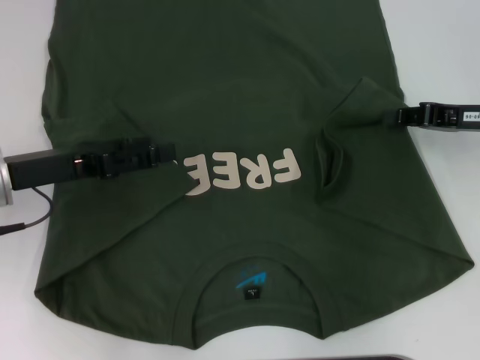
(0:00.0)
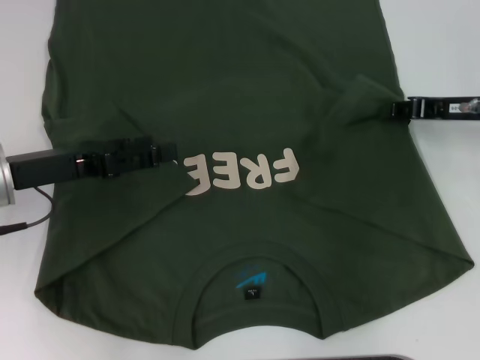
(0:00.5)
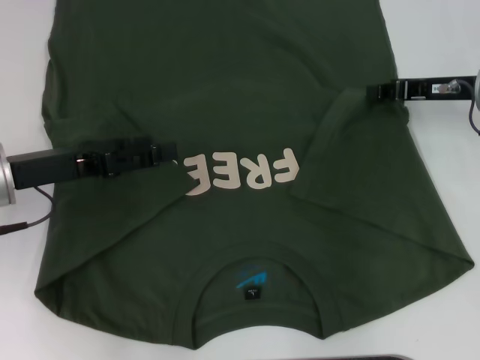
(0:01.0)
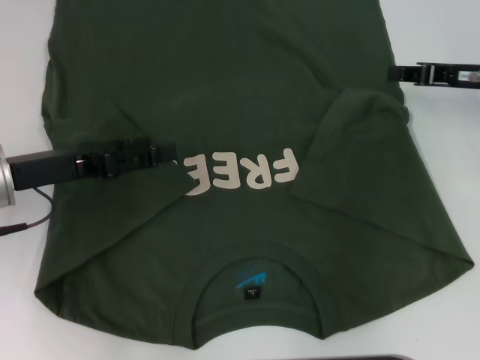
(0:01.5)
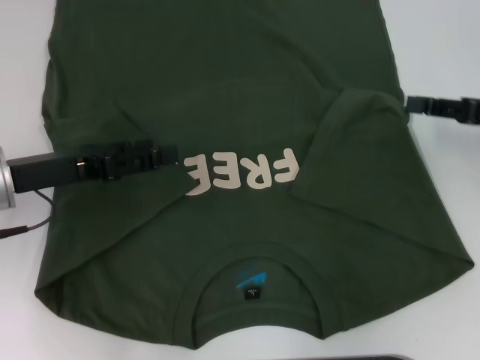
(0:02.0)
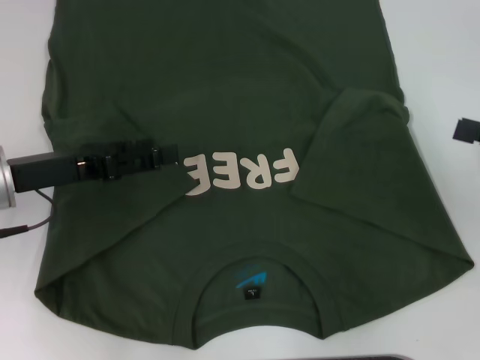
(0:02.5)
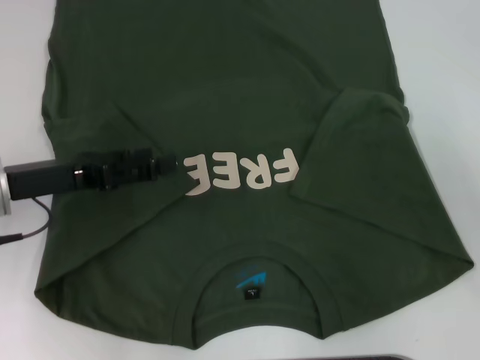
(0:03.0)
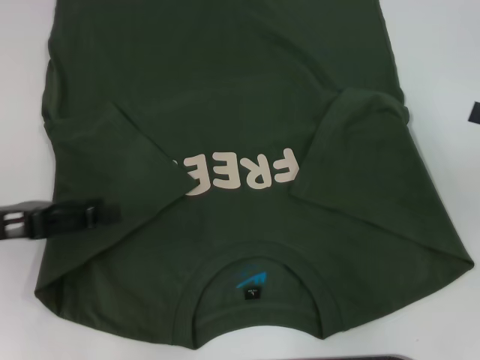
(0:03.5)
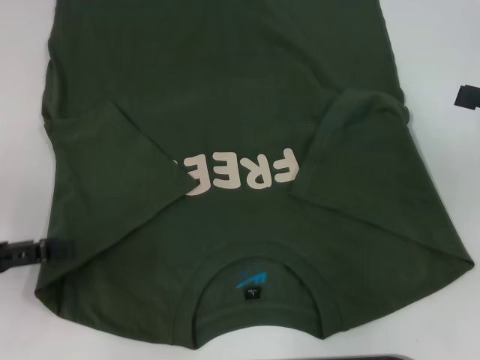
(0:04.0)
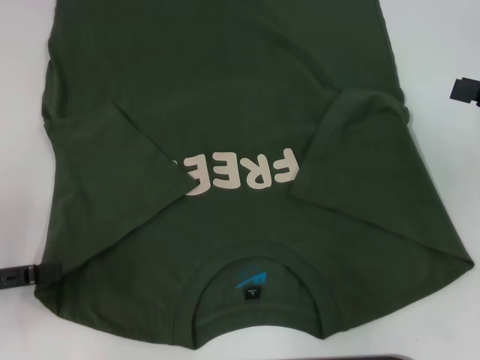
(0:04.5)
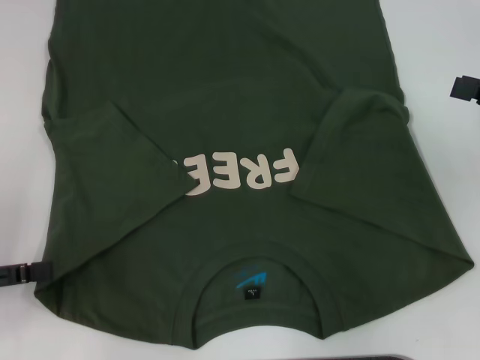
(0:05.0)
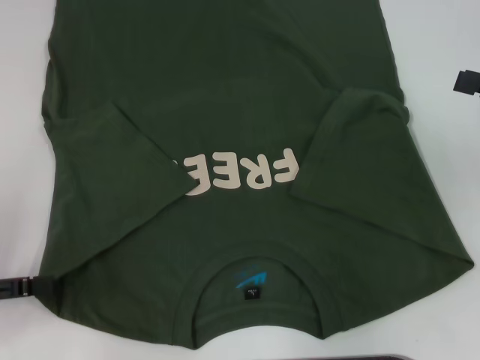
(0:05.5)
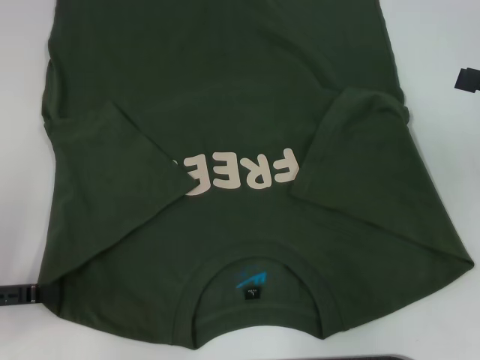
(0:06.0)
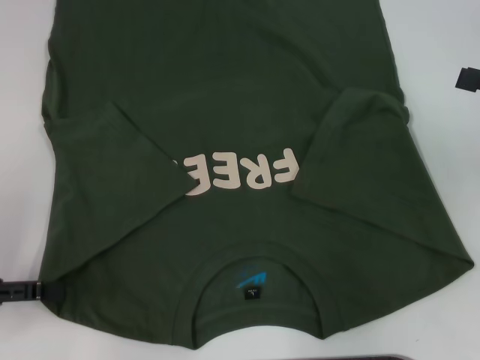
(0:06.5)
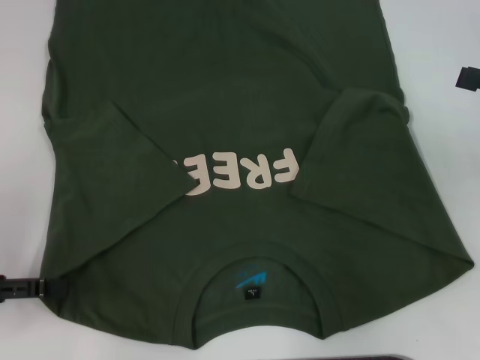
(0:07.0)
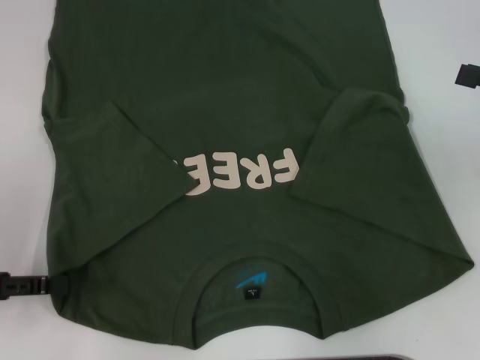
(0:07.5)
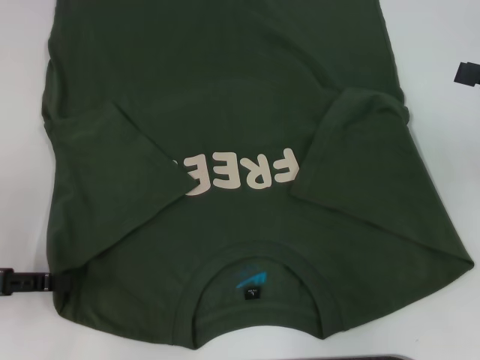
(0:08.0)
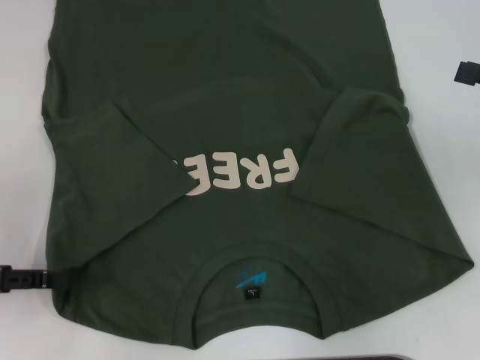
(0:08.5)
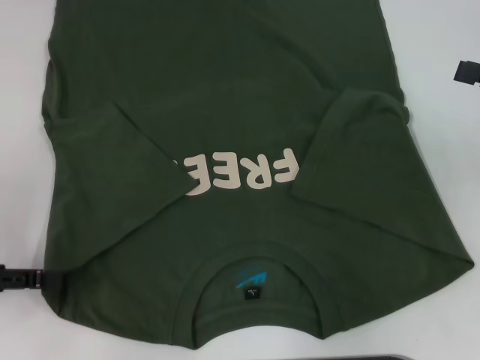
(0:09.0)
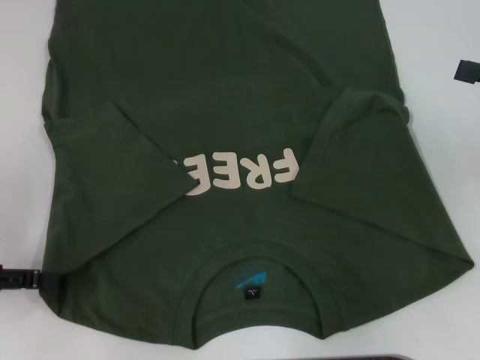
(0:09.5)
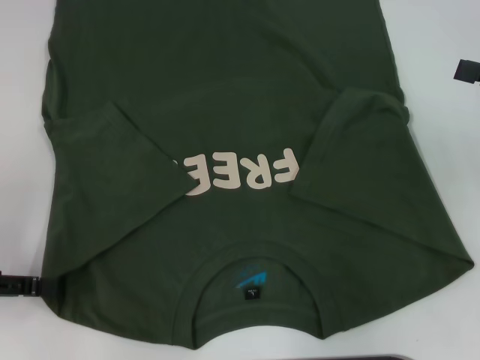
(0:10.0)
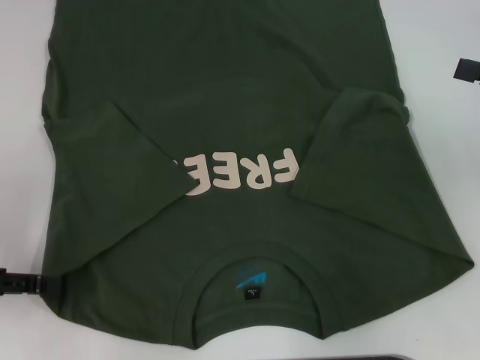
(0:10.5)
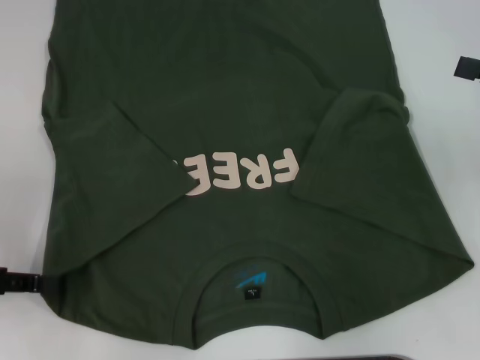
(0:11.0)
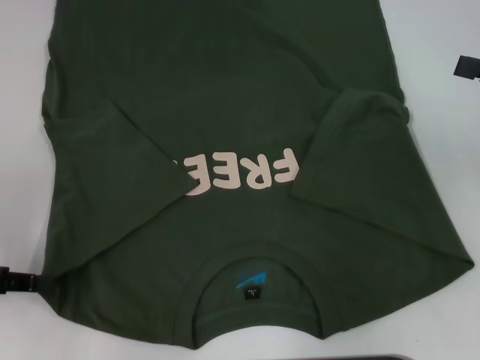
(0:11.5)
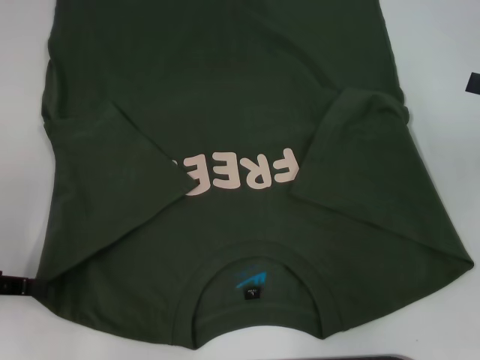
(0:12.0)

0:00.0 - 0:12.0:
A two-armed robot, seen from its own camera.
0:00.0 - 0:02.0: There are only small adjustments of the grippers.
0:02.0 - 0:04.0: The right gripper opens its fingers, while the left gripper heads to the left and backward, covering about 10 cm.
0:04.0 - 0:06.0: The grippers stay close to where they were, moving slightly.
0:06.0 - 0:08.0: The left gripper closes.
0:08.0 - 0:10.0: Both grippers stay about where they are.

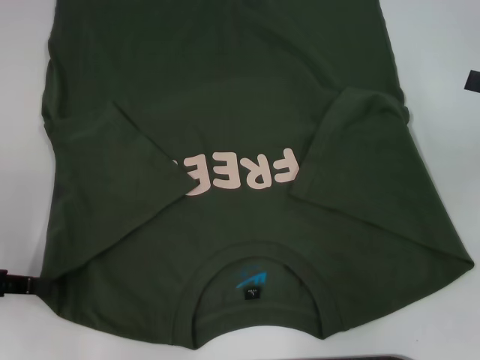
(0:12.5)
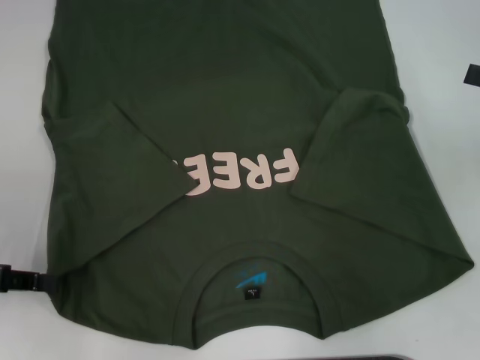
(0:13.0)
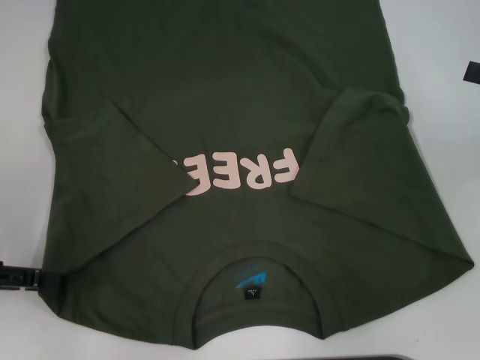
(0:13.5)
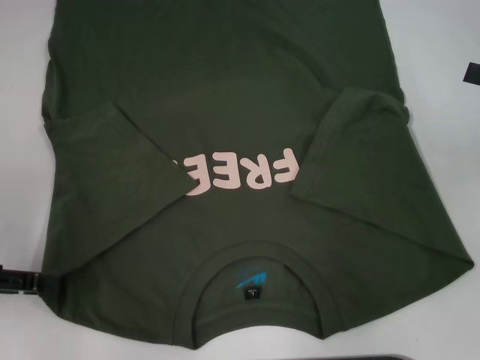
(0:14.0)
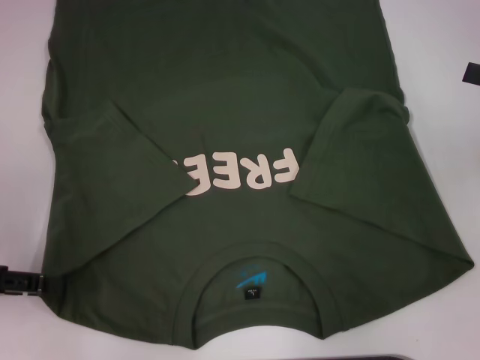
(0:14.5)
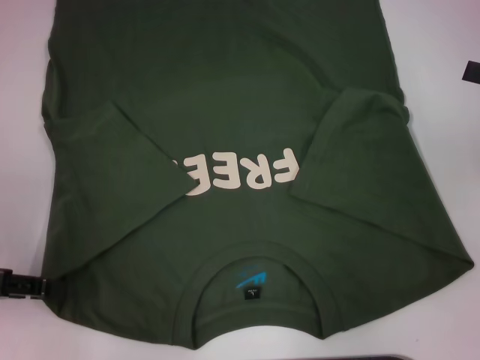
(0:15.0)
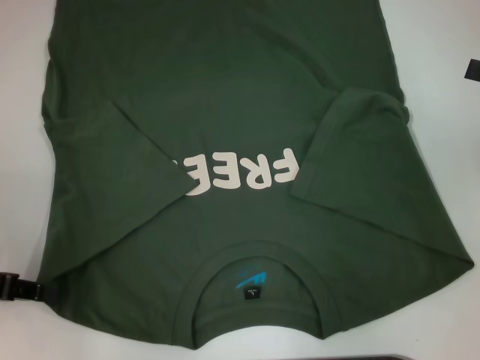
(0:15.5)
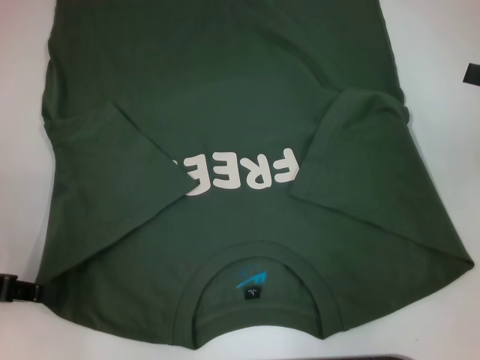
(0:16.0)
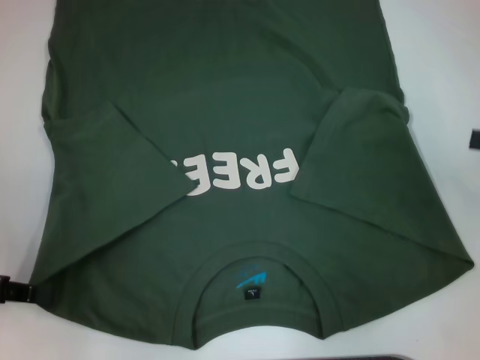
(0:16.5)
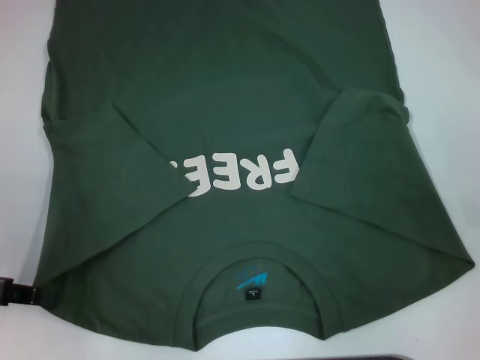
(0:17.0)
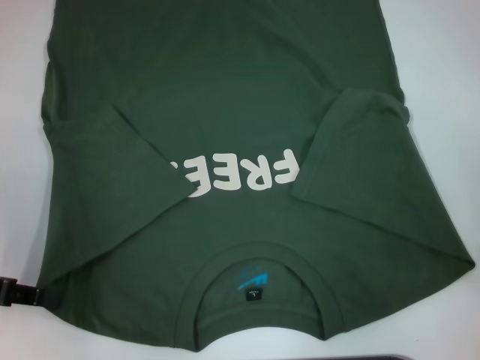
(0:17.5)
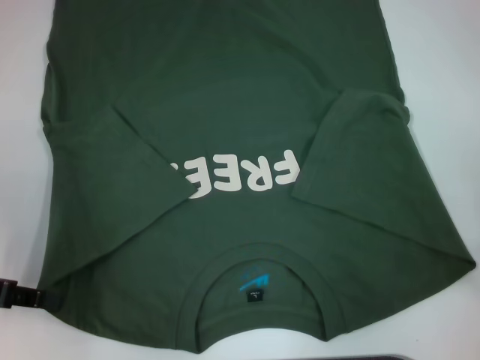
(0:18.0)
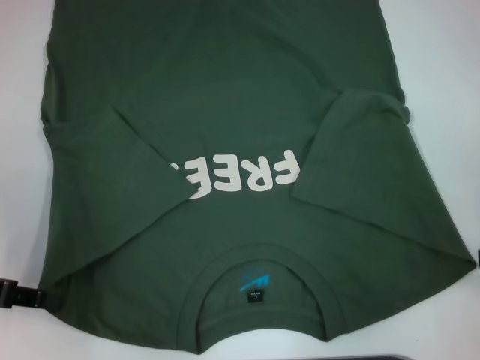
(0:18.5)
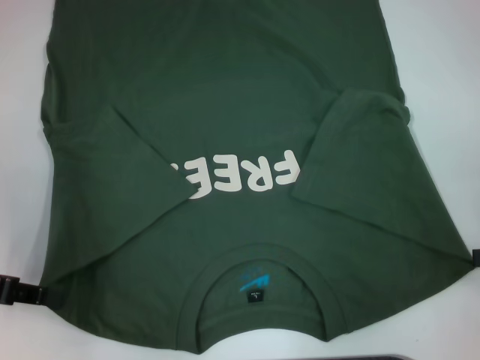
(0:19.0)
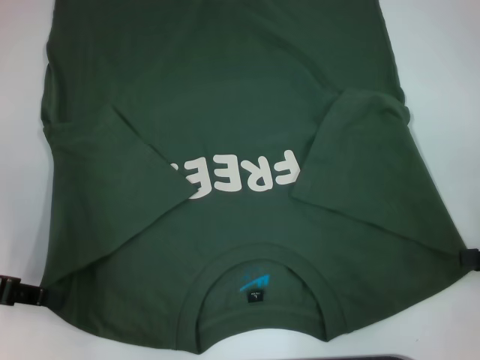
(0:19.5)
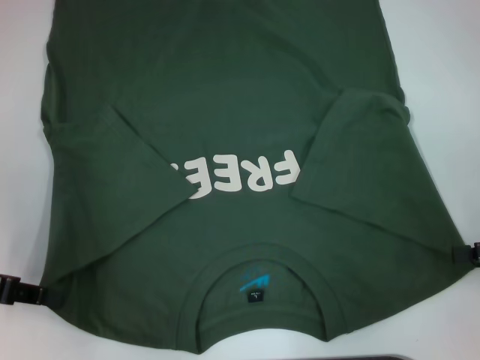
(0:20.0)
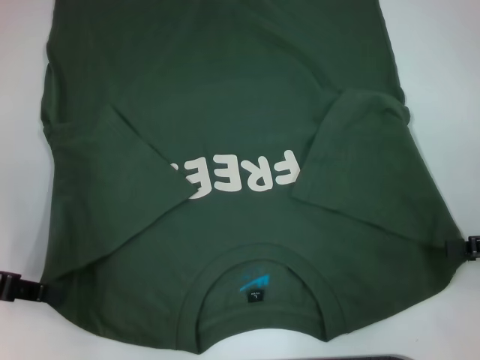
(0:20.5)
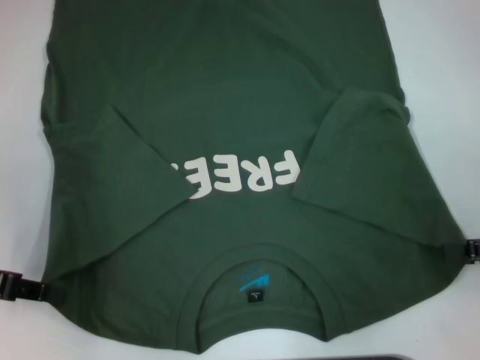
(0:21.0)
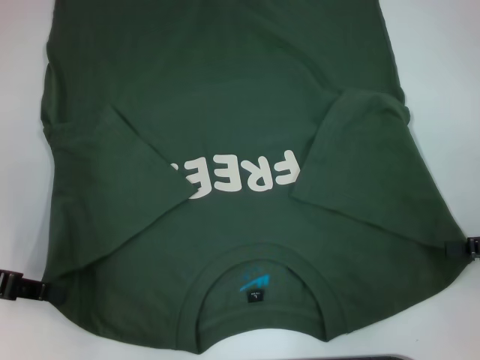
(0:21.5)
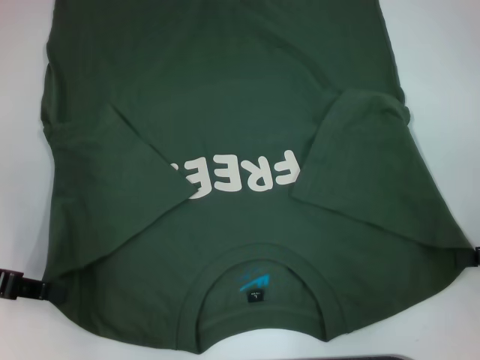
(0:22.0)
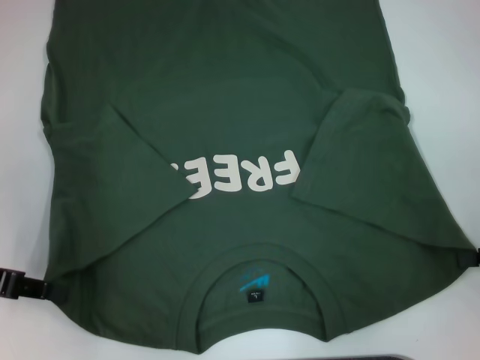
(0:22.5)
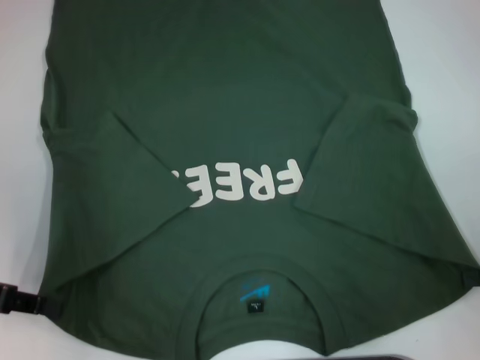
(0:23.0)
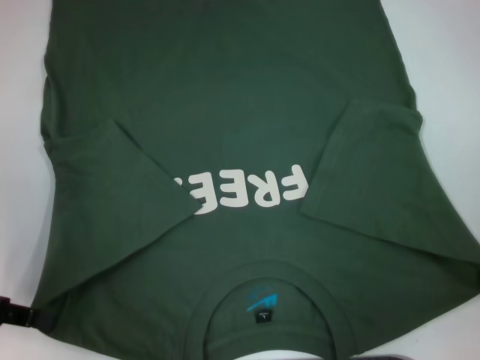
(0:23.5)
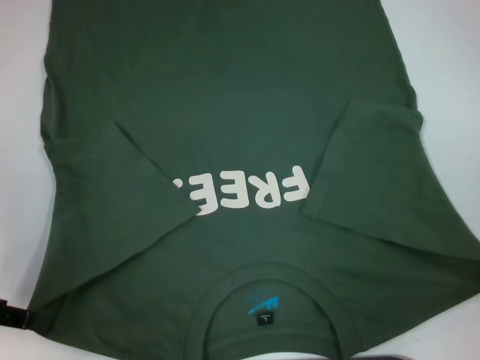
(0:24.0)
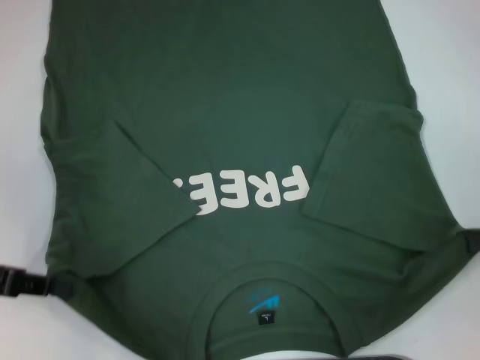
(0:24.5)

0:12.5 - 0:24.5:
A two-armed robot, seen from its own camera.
Step, 0:16.0 - 0:22.0: Grab the bottom right corner with your right hand.
0:14.5 - 0:16.5: The left gripper closes its fingers.
0:16.5 - 0:18.5: The right gripper shifts by roughly 5 cm.
0:18.5 - 0:20.5: The grippers stay close to where they were, moving slightly.
0:22.5 - 0:24.5: The grippers stay close to where they were, moving slightly.

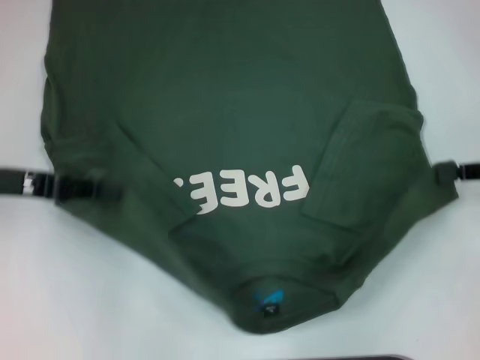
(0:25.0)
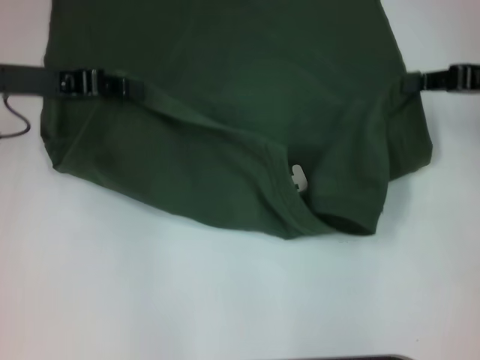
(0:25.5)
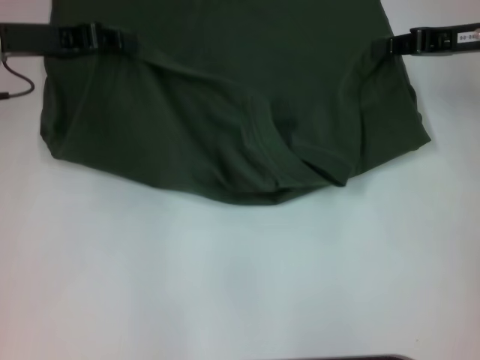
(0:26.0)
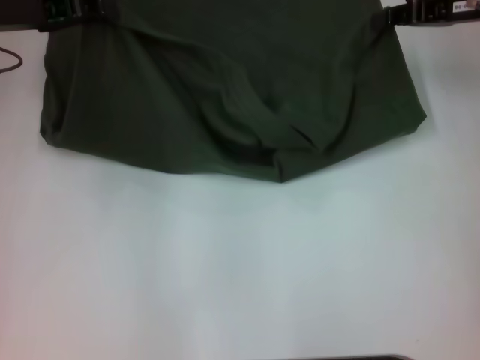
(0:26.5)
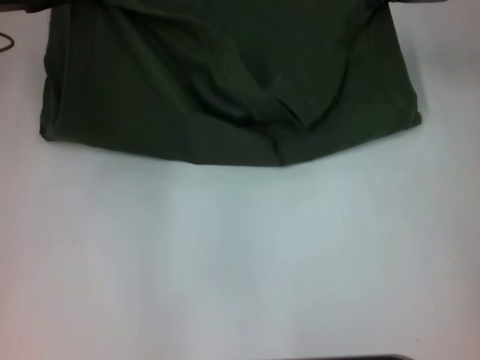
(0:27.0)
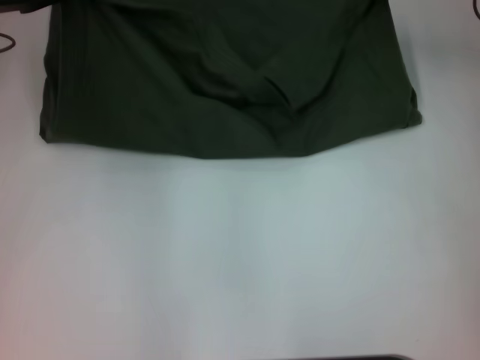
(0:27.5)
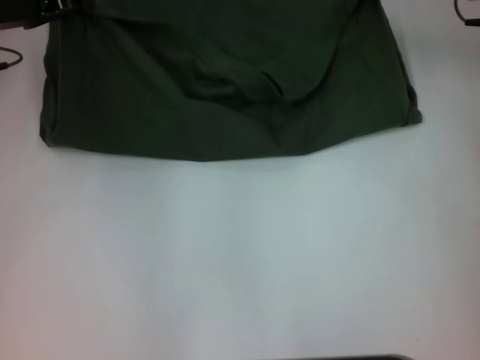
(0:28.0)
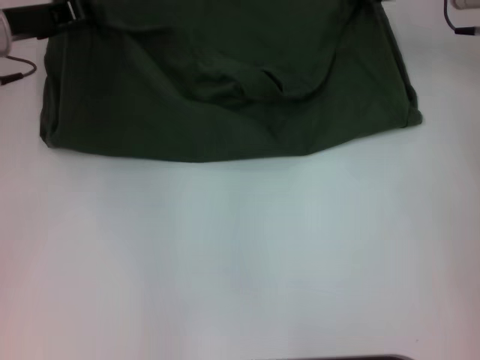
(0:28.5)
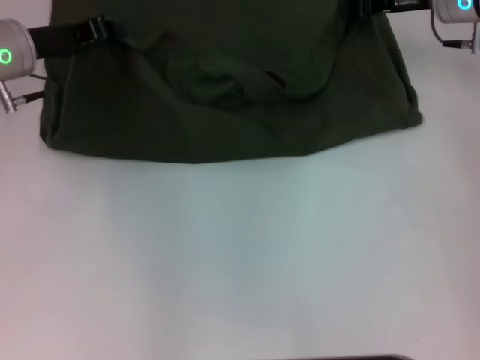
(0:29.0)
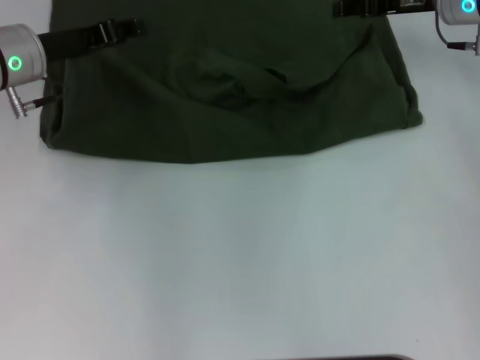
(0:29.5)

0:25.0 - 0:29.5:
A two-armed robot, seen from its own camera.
Step, 0:25.0 - 0:29.0: Fold the clothes with your left hand.
Step, 0:25.0 - 0:29.0: Fold the clothes with your right hand.
0:25.0 - 0:27.0: The right gripper heads forward, to the left and upward, covering roughly 20 cm, while the left gripper shifts approximately 15 cm forward and upward.
0:27.0 - 0:29.5: The left gripper travels downward by about 5 cm. Meanwhile the right gripper moves about 5 cm.
